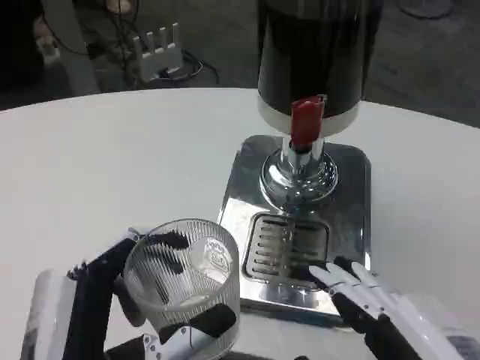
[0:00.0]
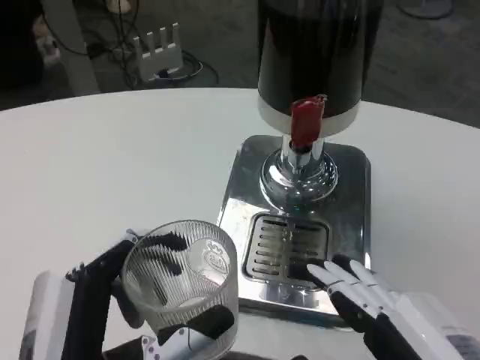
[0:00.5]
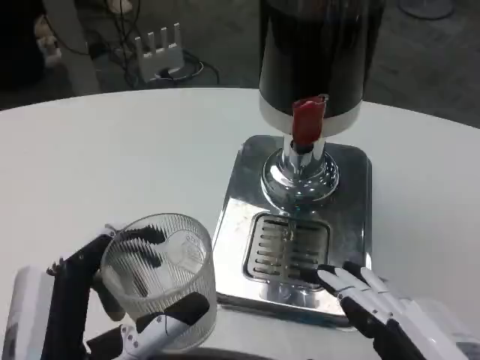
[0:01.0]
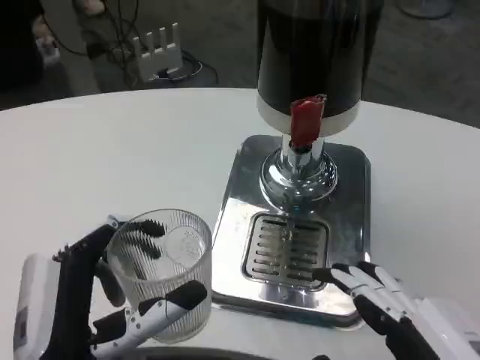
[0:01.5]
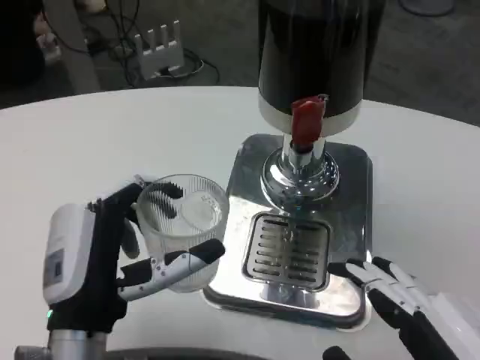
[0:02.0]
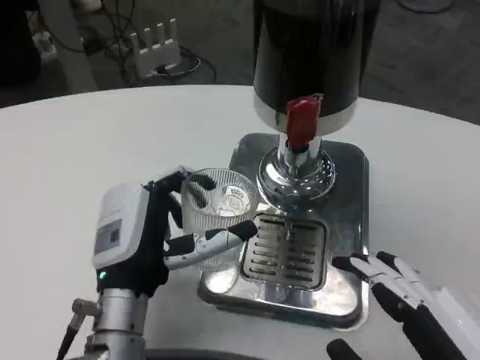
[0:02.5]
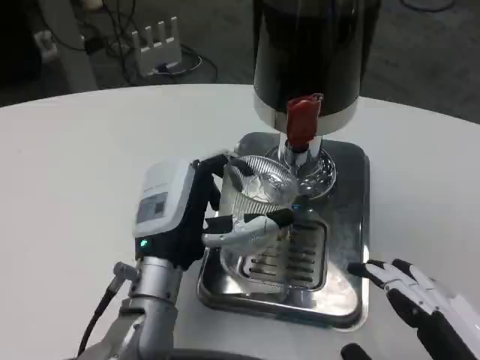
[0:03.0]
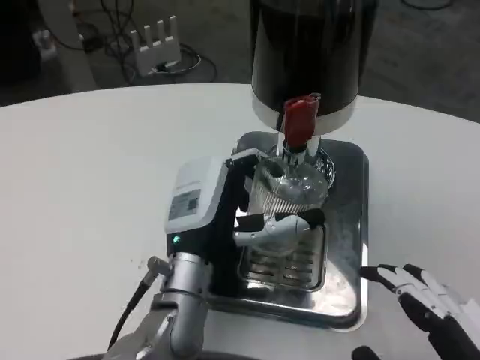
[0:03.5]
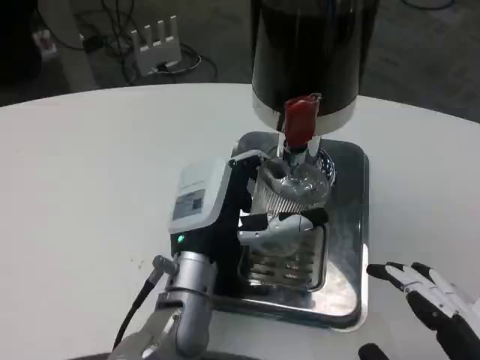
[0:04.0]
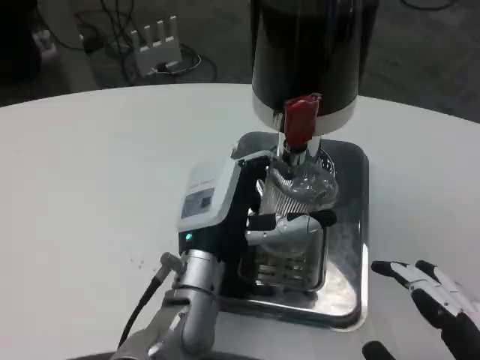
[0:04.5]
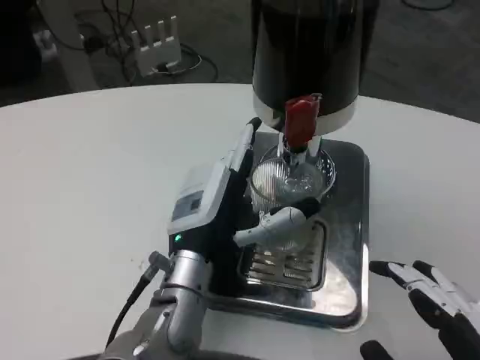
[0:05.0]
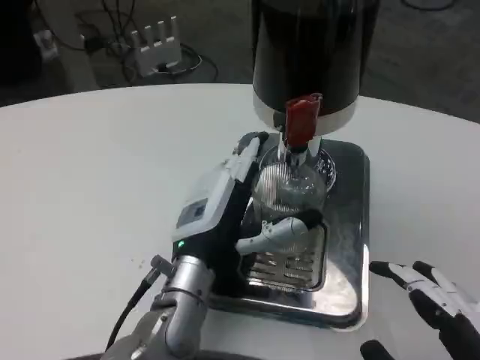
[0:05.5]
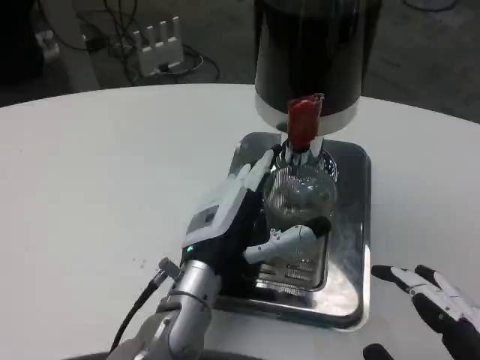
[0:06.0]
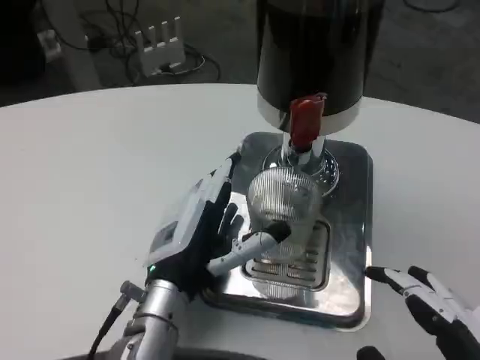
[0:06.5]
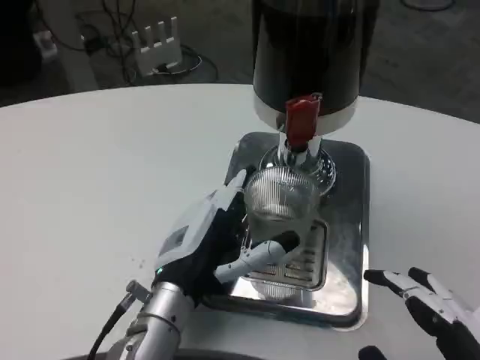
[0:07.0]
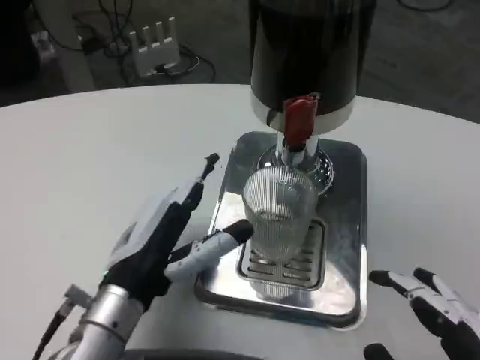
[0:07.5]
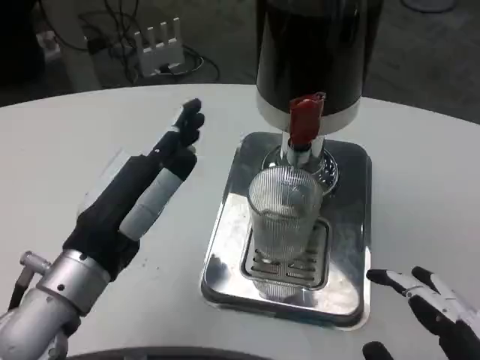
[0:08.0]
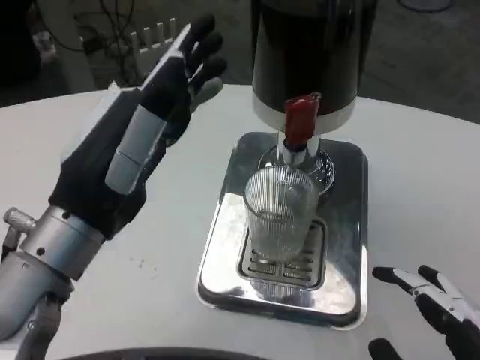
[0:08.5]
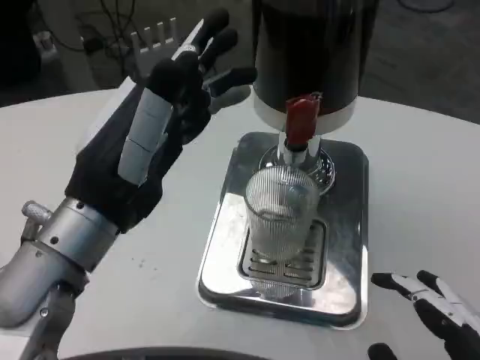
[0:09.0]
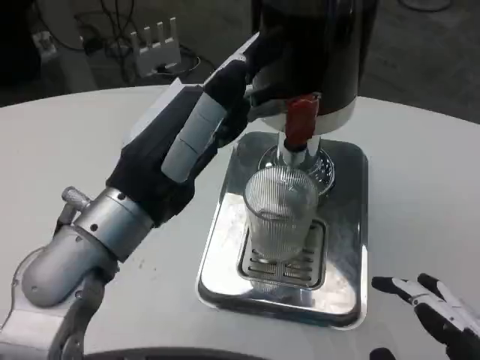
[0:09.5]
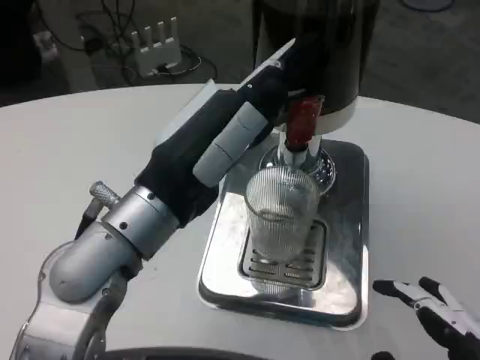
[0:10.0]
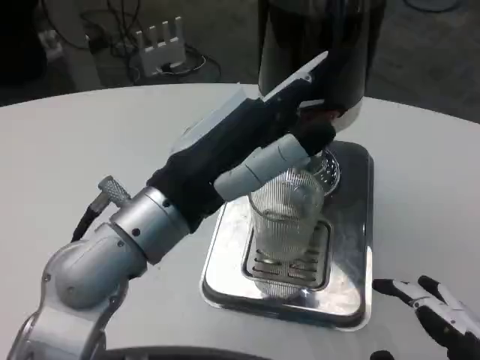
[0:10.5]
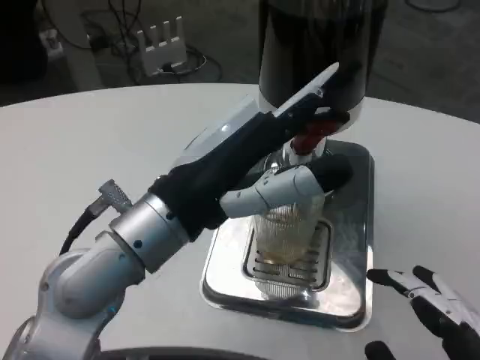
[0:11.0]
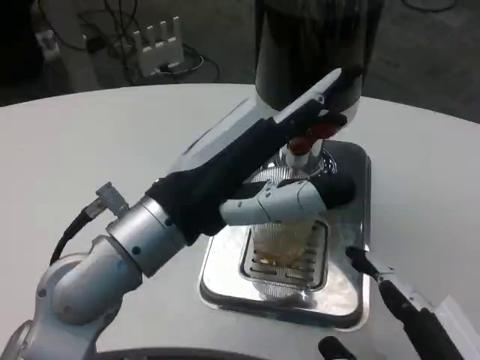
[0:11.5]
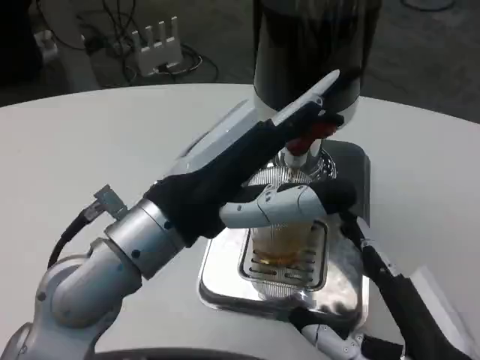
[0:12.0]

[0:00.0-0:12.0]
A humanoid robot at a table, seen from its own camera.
Task of the whole recording: Grasp the cup under the faucet to collect the drink, then remove the cup.
0.0 to 2.0 s: The left hand travels forward by about 10 cm.
2.0 to 4.0 s: The left hand goes roughly 10 cm forward and to the right.
4.0 to 6.0 s: The hands make only small movements.
6.0 to 8.0 s: The left hand travels to the left, upward and backward by approximately 15 cm.
8.0 to 10.0 s: The left hand shifts some 10 cm upward and to the right.
10.0 to 12.0 s: The right hand moves forward, approximately 5 cm.

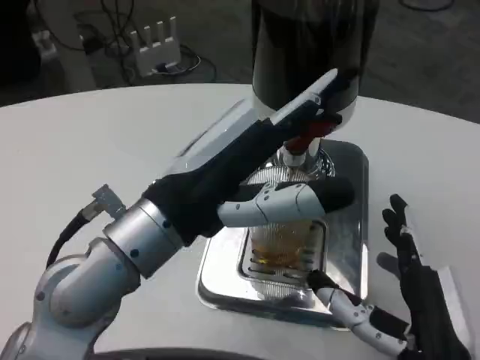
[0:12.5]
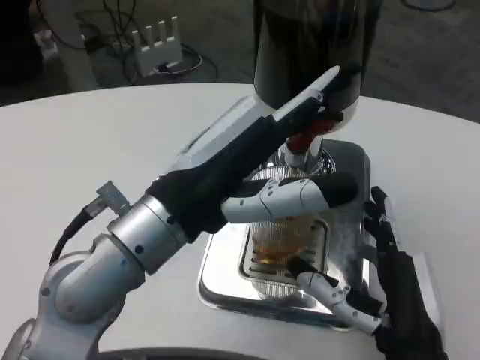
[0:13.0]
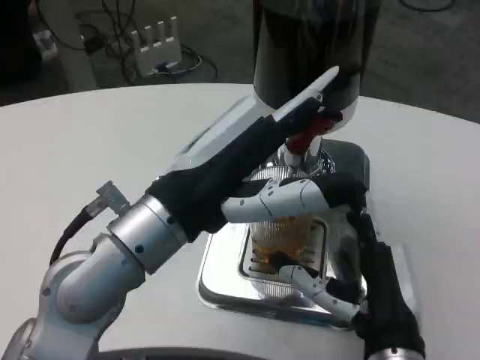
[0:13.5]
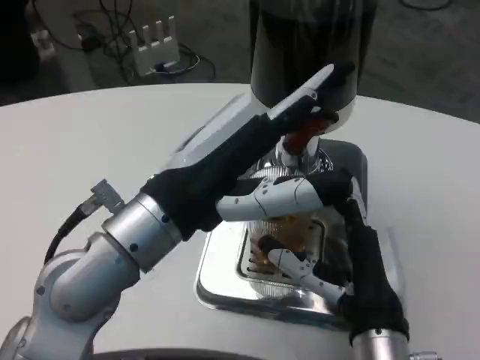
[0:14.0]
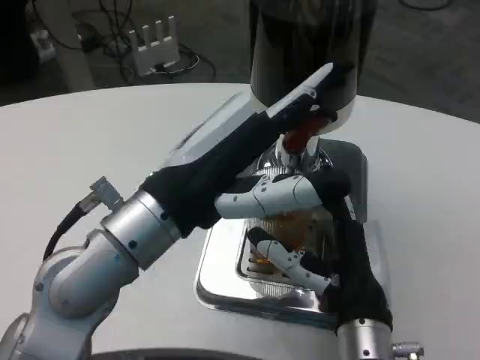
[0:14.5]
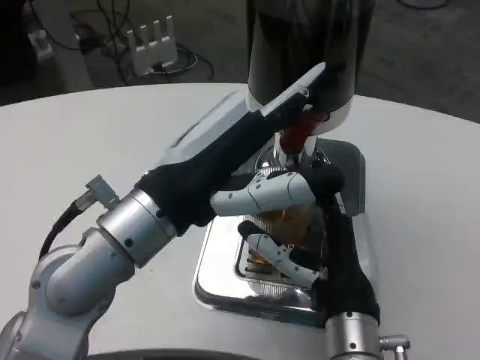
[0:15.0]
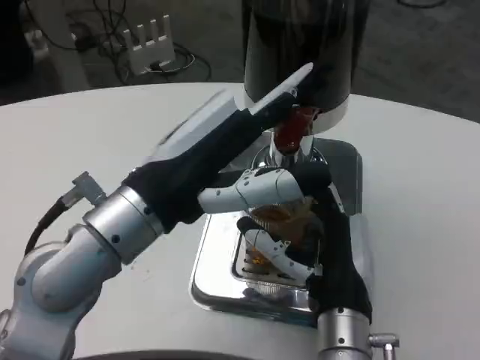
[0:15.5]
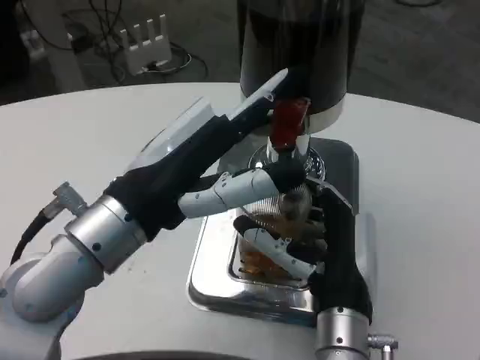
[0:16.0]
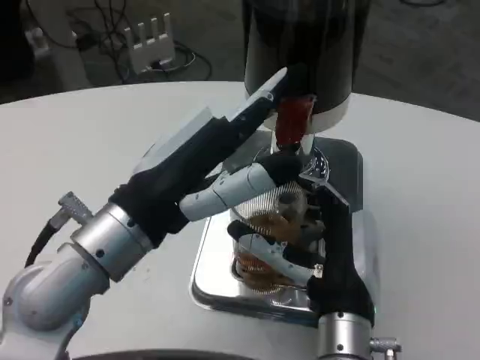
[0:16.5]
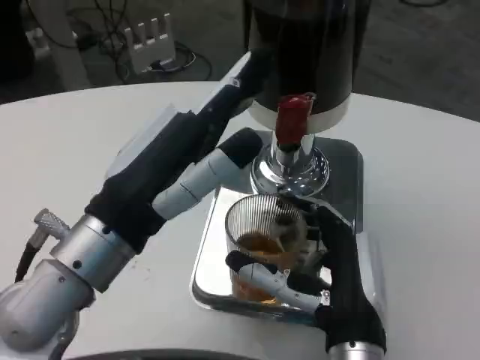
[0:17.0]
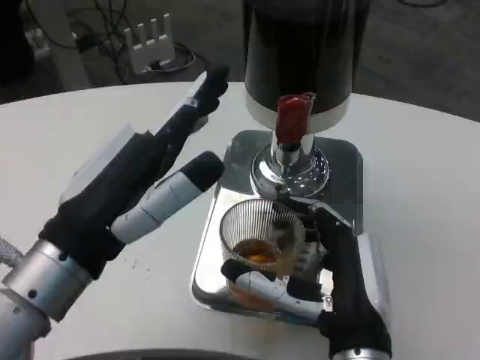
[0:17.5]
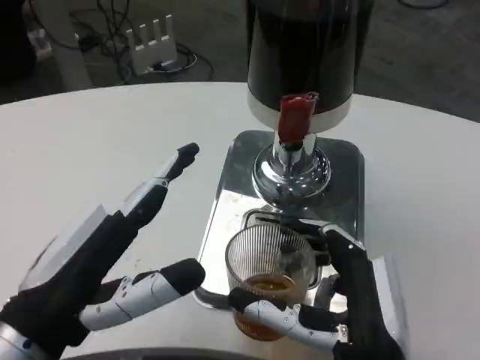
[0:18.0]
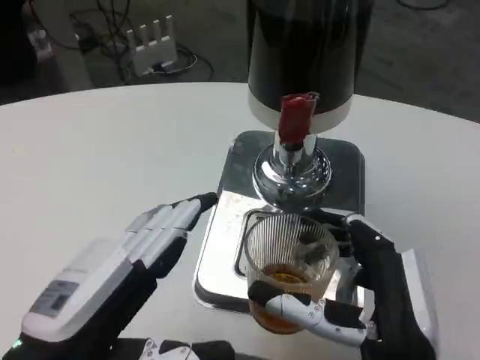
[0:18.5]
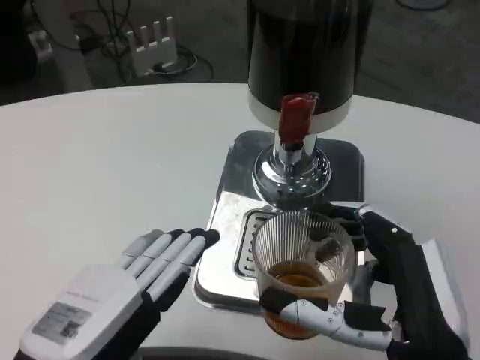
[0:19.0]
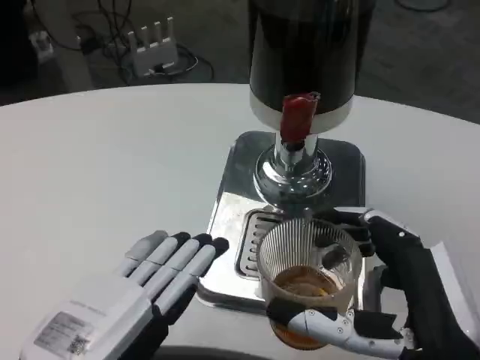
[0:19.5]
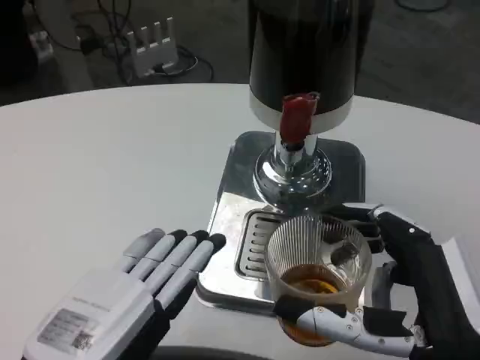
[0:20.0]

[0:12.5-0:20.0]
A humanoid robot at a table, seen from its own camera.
Task of the whole recording: Grasp the cup under the faucet to collect the drink, then remove the cup.
12.5 to 14.5 s: The right hand shifts some 10 cm forward and to the left.
16.5 to 18.0 s: The left hand goes roughly 10 cm backward, to the left and downward. The right hand is displaced backward by about 5 cm.
18.0 to 20.0 s: The right hand is displaced to the right by roughly 5 cm.

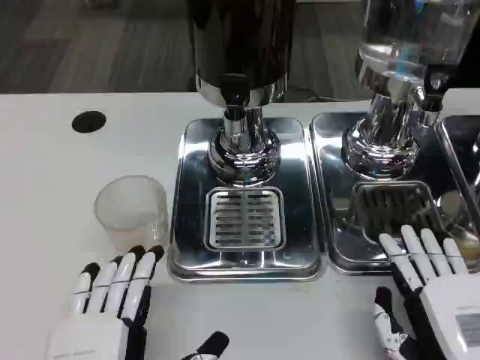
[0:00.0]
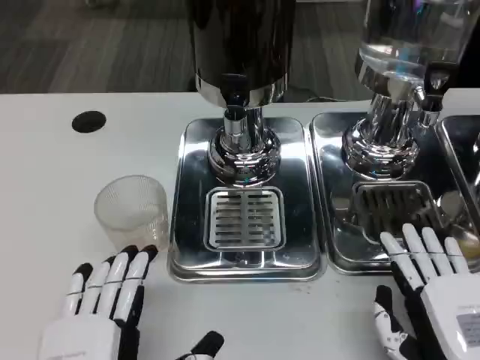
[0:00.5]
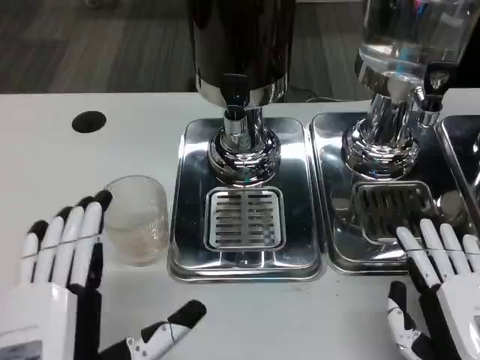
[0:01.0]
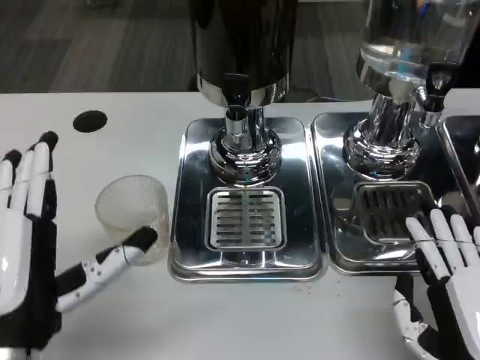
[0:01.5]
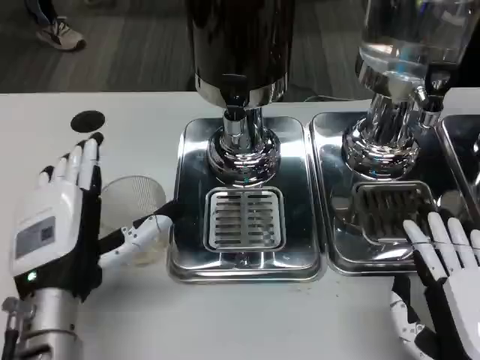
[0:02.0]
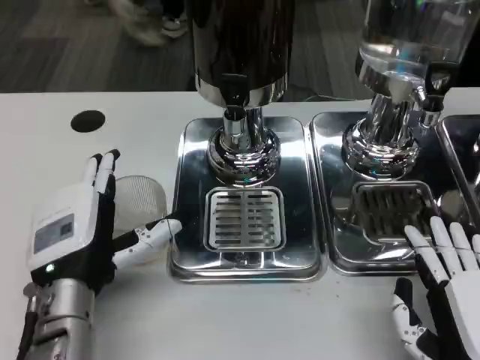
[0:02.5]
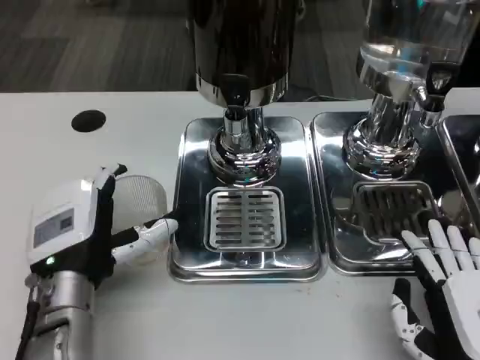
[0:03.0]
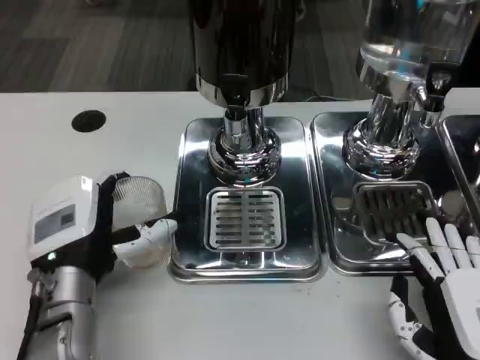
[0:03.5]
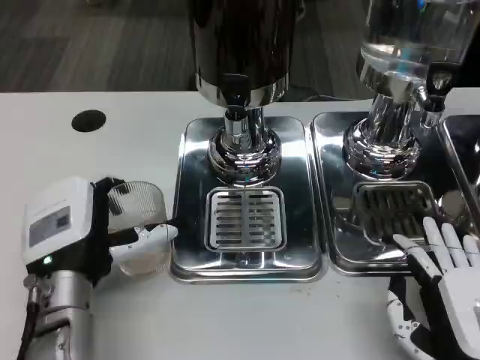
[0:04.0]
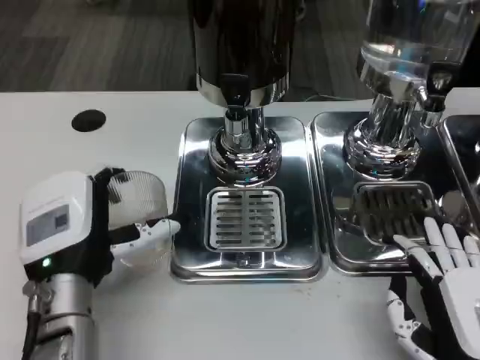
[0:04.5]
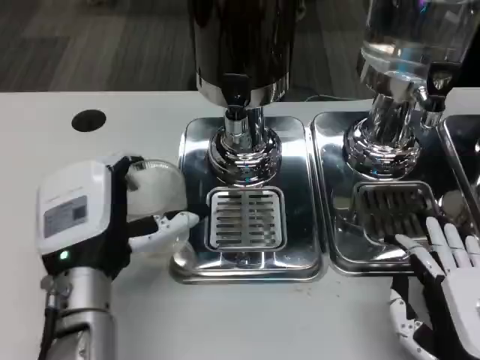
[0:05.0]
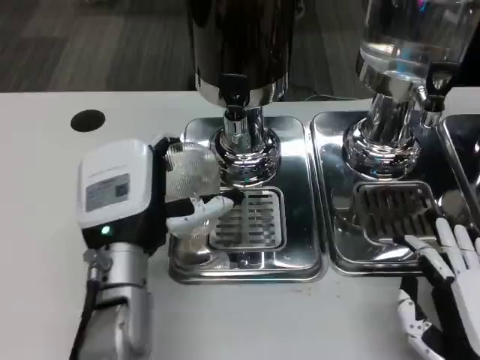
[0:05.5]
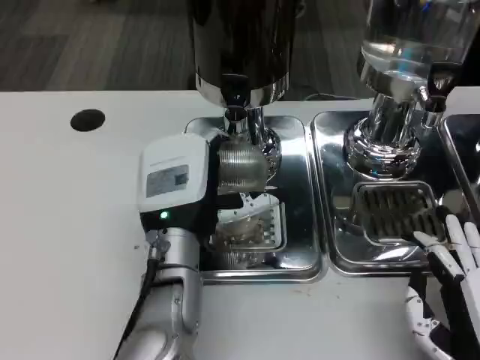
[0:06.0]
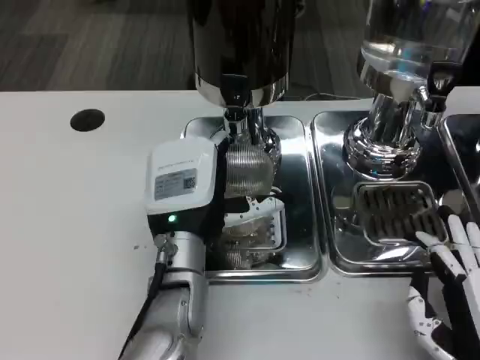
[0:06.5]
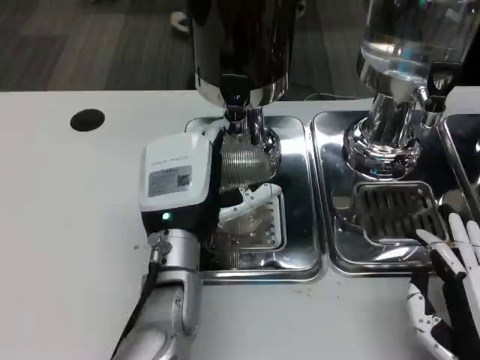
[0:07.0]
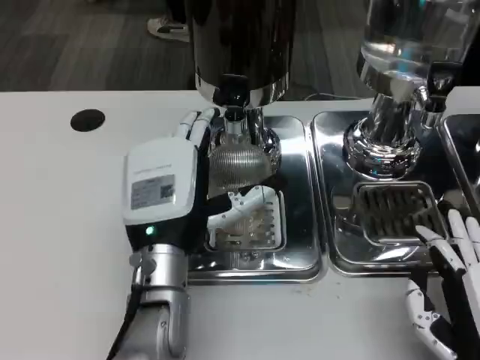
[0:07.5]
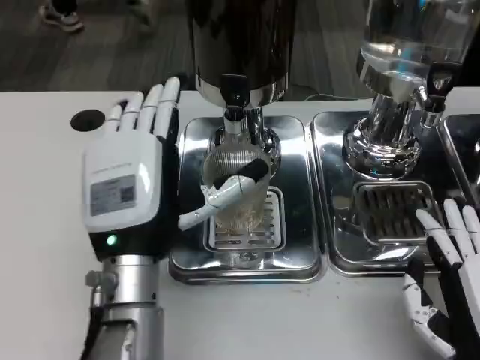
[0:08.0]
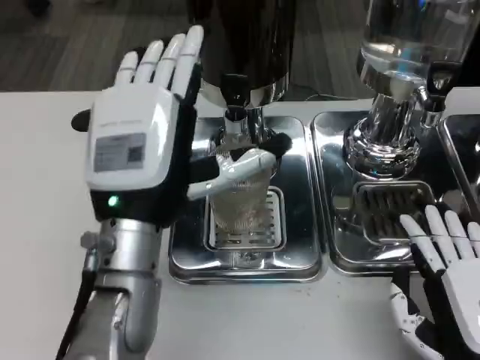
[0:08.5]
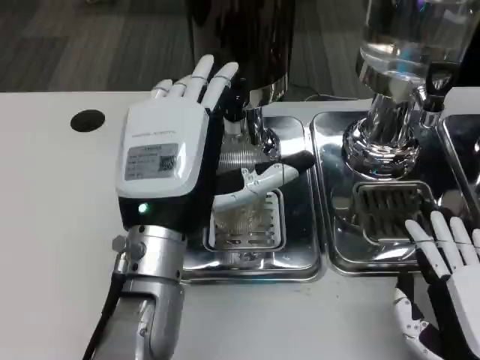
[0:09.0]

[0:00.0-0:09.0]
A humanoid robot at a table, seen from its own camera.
Task of the whole recording: Grasp the cup under the faucet to collect the drink, then remove the cup.
0.0 to 2.0 s: The left hand heads forward, covering roughly 15 cm.
2.0 to 4.5 s: There are only small adjustments of the hands.
4.5 to 7.0 s: The left hand shifts roughly 10 cm to the right and forward.
7.0 to 9.0 s: The left hand is displaced upward by about 5 cm.
